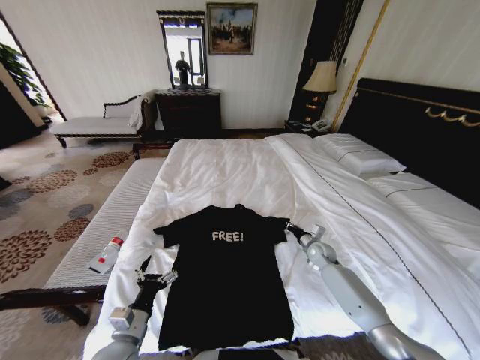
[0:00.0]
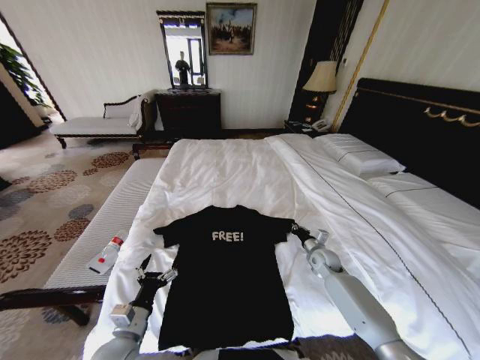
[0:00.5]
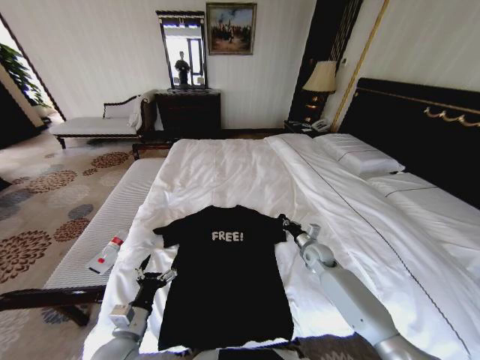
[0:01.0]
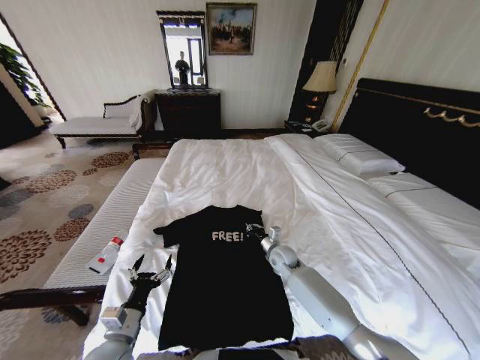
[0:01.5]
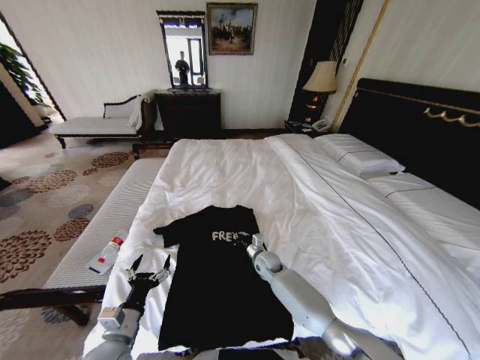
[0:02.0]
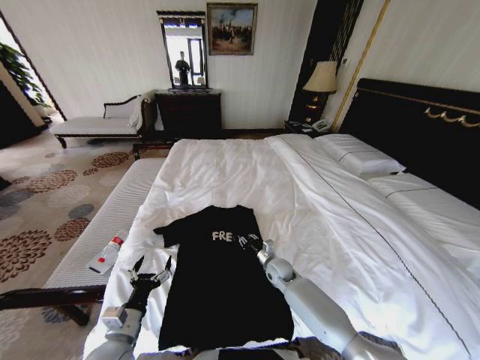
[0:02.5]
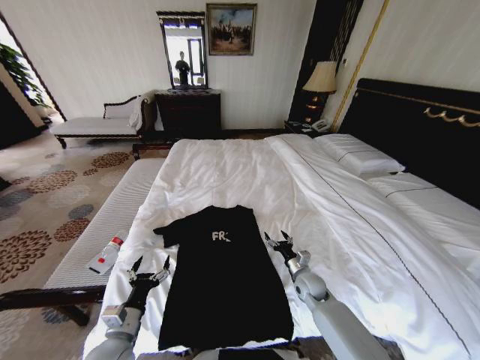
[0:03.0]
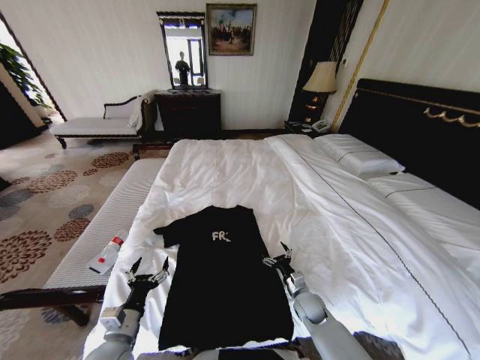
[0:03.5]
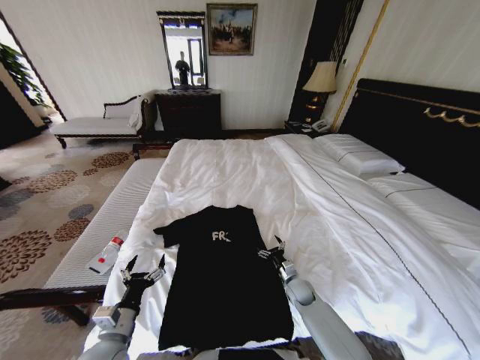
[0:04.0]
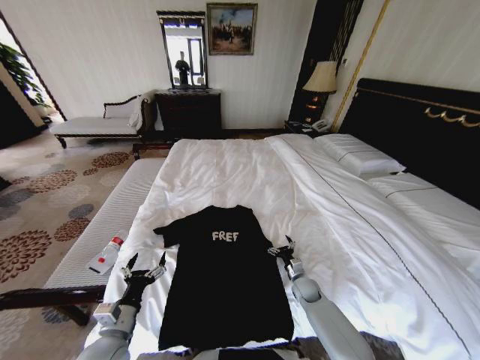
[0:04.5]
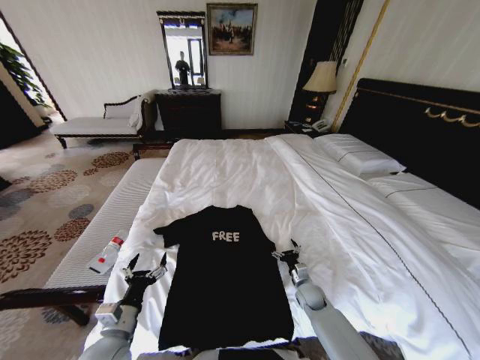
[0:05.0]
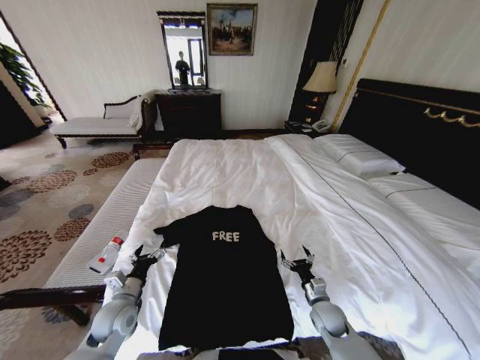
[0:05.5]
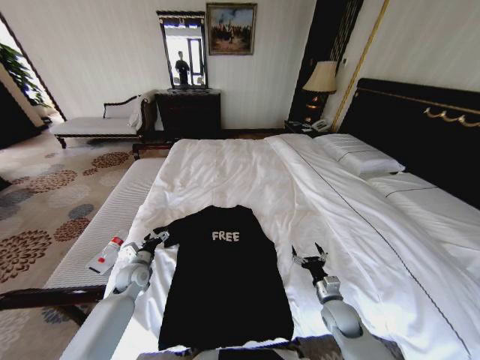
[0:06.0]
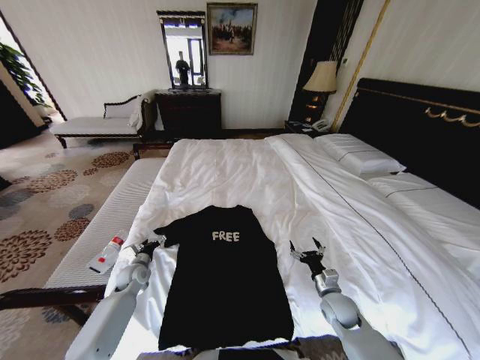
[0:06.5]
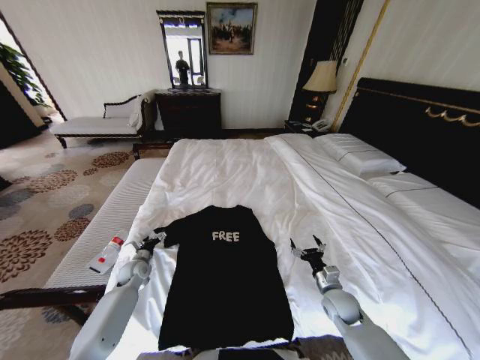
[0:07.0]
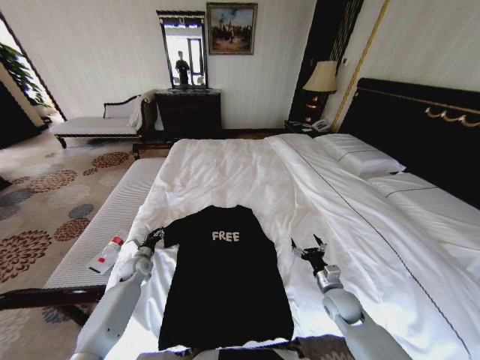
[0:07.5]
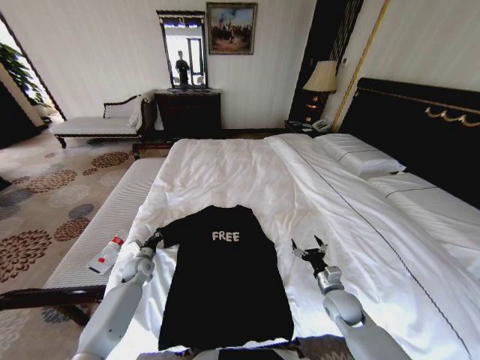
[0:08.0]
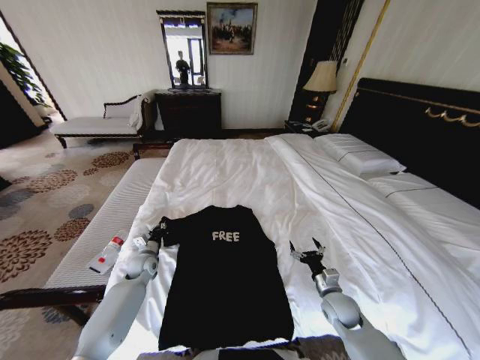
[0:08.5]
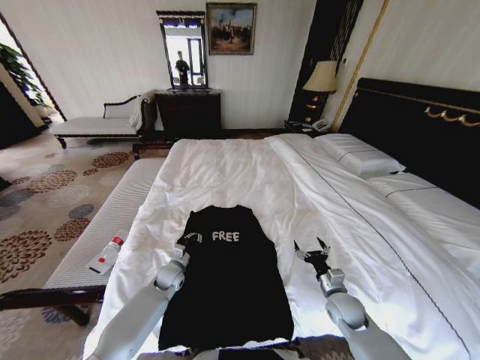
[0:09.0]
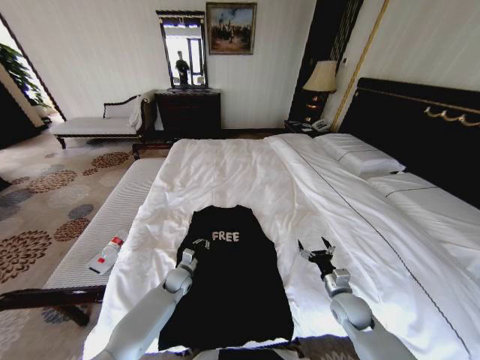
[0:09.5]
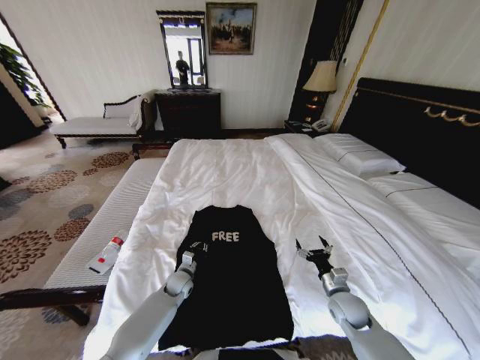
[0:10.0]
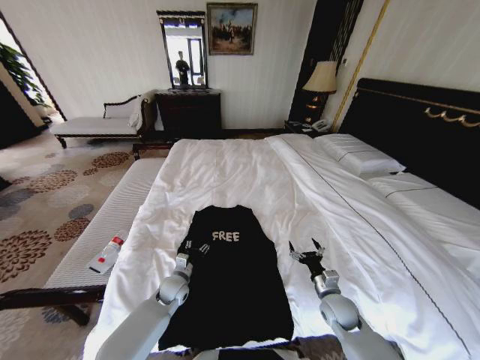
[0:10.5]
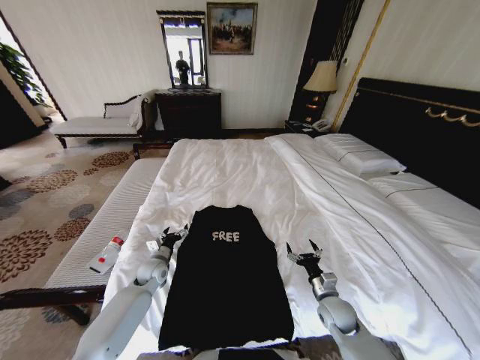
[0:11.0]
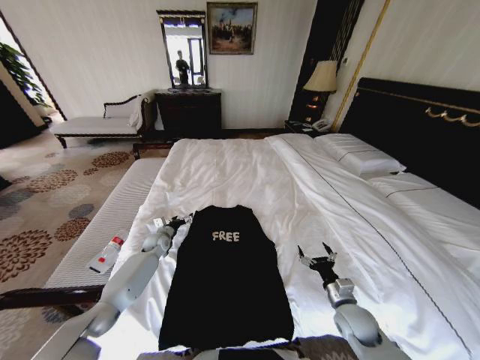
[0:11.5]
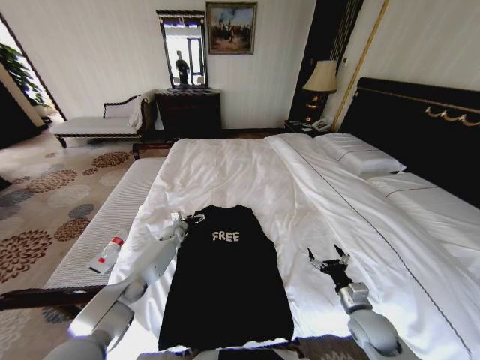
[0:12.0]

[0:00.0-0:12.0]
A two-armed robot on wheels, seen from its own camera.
Task of the whole recording: Fold the clothes on the bed.
0:00.0 to 0:02.0: The right gripper travels to the left by approximately 20 cm.
0:02.0 to 0:04.0: The right gripper goes roughly 15 cm to the right, backward and downward, and opens its fingers.
0:04.0 to 0:06.0: The left gripper shifts some 20 cm forward, while the right gripper heads backward, to the right and upward, covering approximately 15 cm.
0:06.0 to 0:08.0: The left gripper shifts roughly 5 cm forward, and closes its fingers.
0:08.0 to 0:10.0: The left gripper travels to the right by some 15 cm.
0:10.0 to 0:12.0: The right gripper is displaced backward by roughly 5 cm. Meanwhile the left gripper travels forward by approximately 20 cm, and opens its fingers.

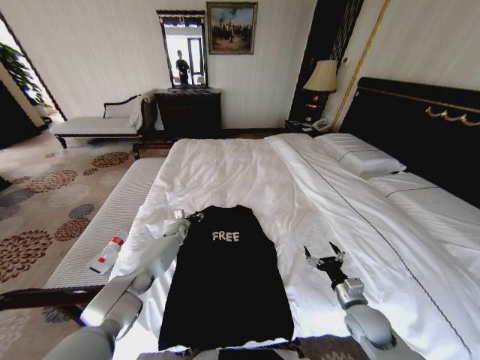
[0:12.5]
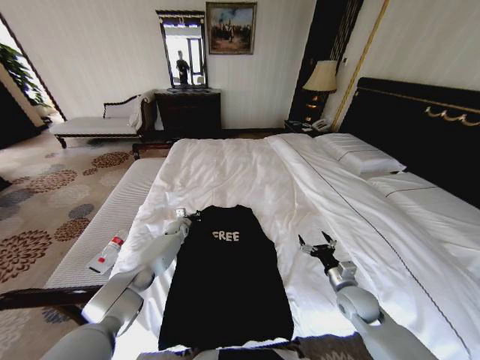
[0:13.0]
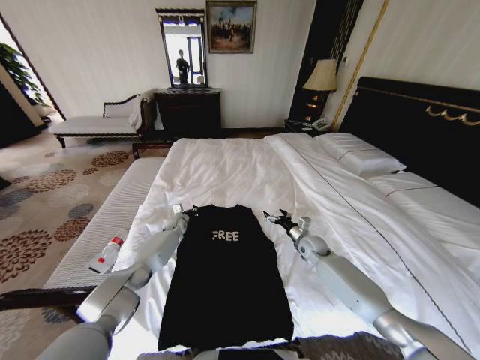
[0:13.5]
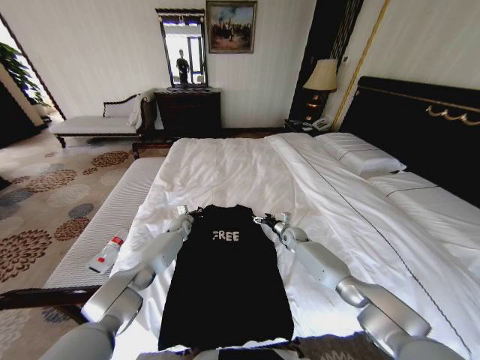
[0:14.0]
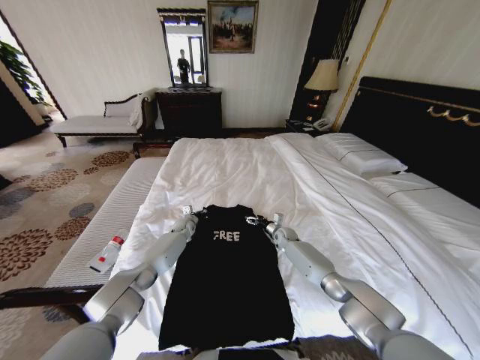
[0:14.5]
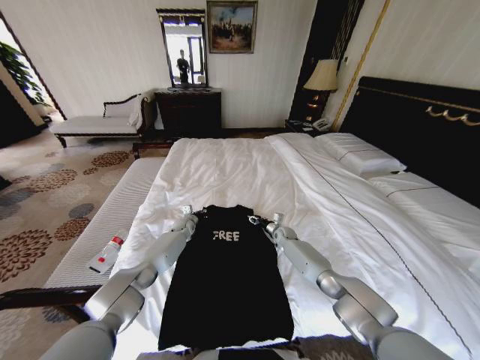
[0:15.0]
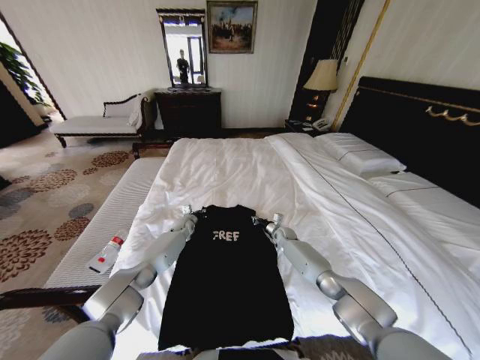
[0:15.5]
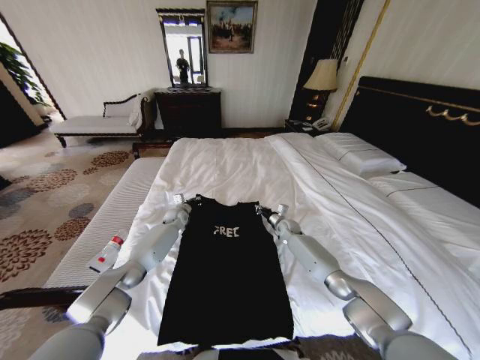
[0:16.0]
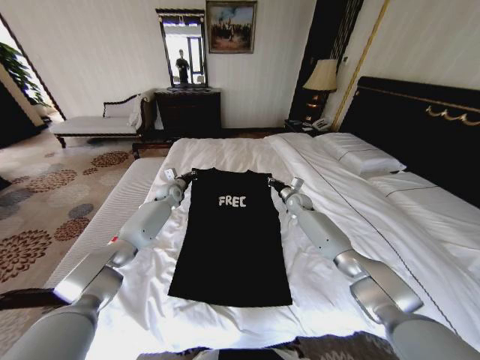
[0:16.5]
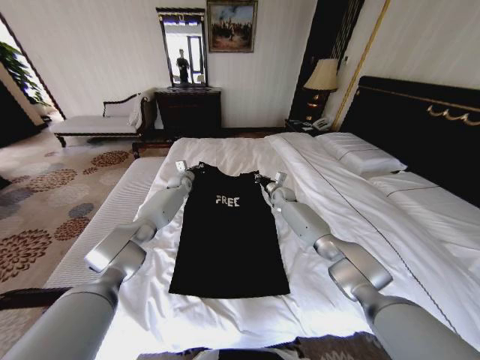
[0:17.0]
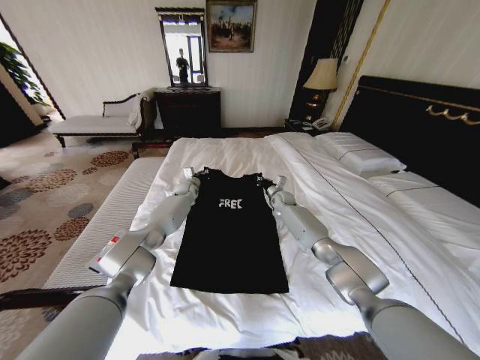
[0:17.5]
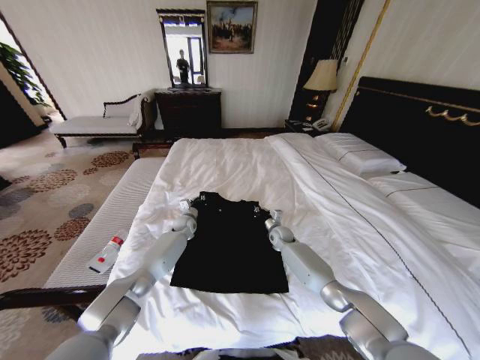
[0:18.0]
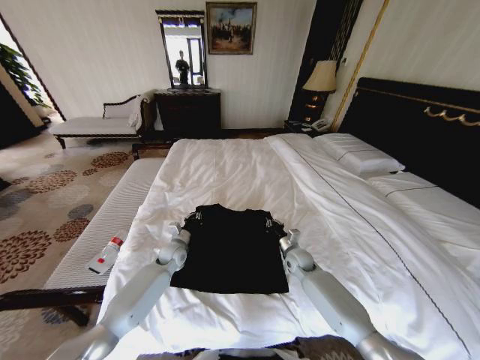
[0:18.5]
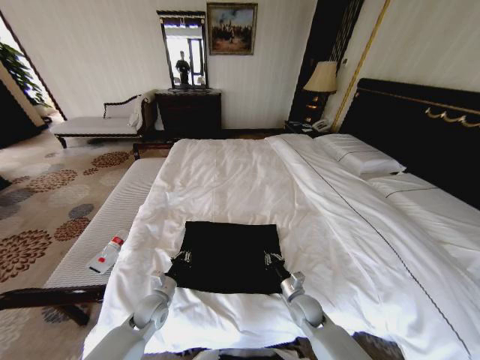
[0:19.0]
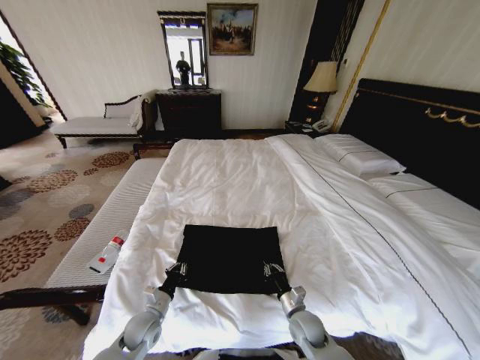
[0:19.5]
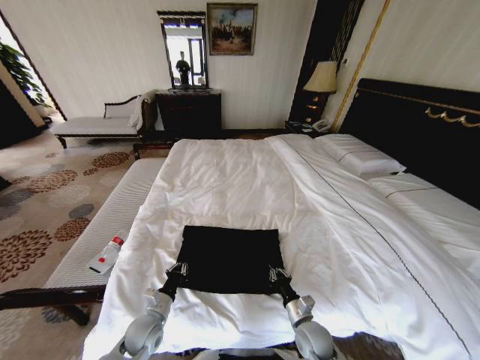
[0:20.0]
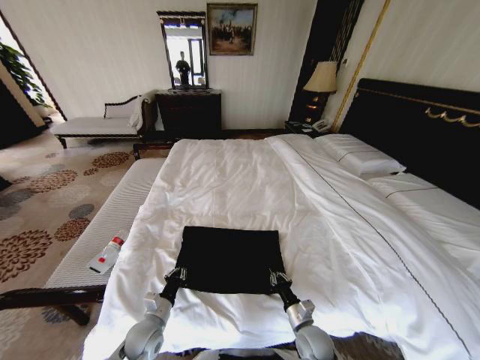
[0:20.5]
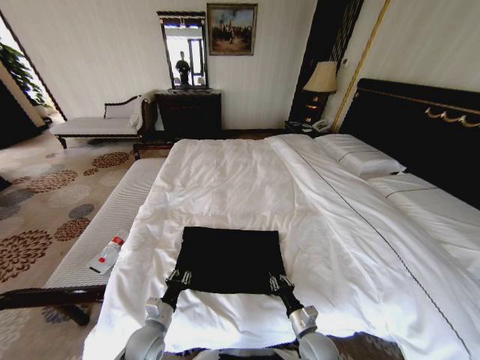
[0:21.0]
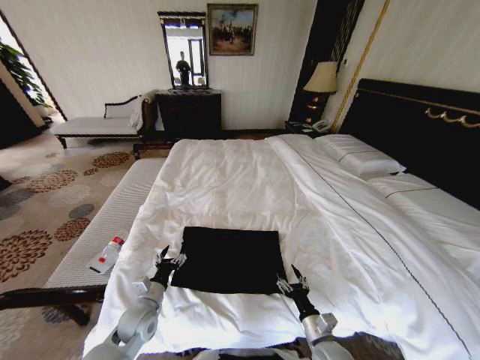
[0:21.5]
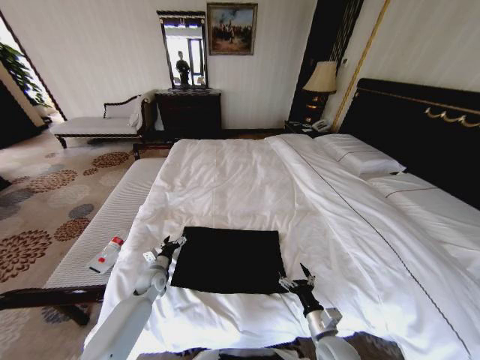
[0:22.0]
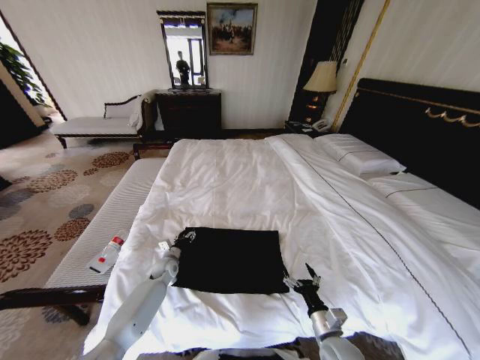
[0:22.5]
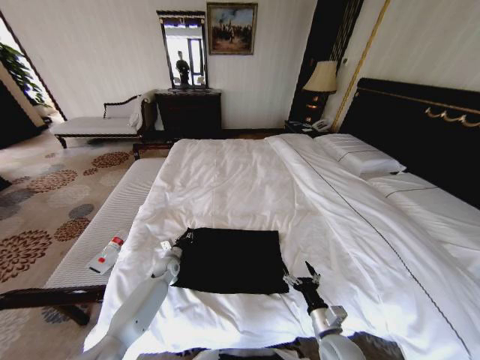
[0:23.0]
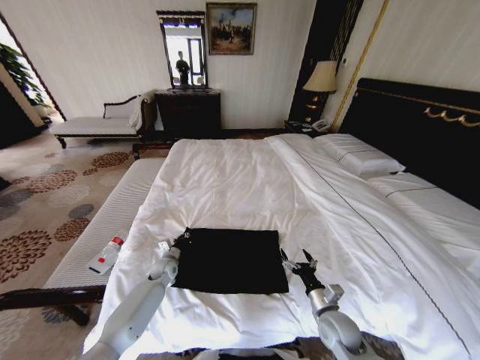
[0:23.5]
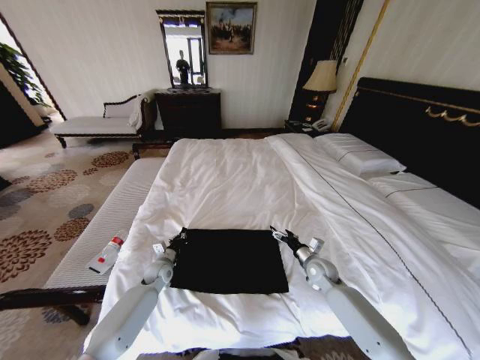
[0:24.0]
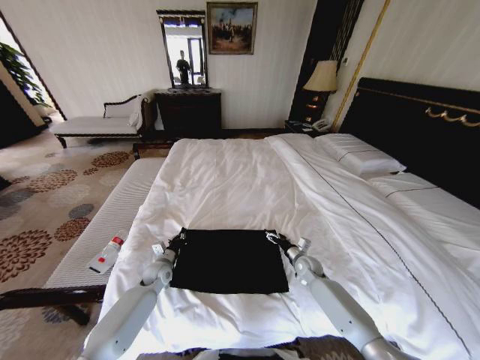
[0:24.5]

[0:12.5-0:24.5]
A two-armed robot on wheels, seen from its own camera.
Task of the whole recording: Fold the clothes on the bed.
0:12.5 to 0:14.5: The right gripper is displaced forward by approximately 35 cm, while the left gripper closes.
0:14.5 to 0:16.5: The left gripper moves upward, roughly 15 cm; the right gripper is displaced upward and forward by some 15 cm, and closes.
0:16.5 to 0:18.5: Both grippers move backward and downward, about 25 cm.
0:18.5 to 0:20.5: The two grippers go some 25 cm backward.
0:20.5 to 0:22.5: The left gripper moves forward, roughly 20 cm, and opens up. The right gripper moves roughly 5 cm, and opens.
0:22.5 to 0:24.5: The right gripper shifts about 25 cm forward. Meanwhile the left gripper closes up.

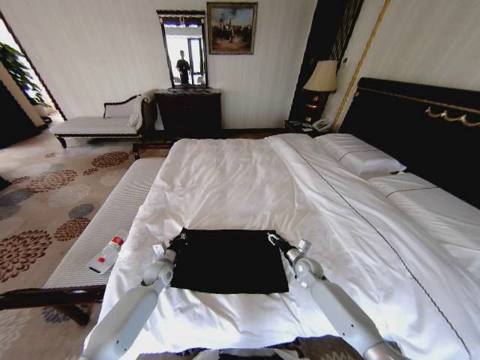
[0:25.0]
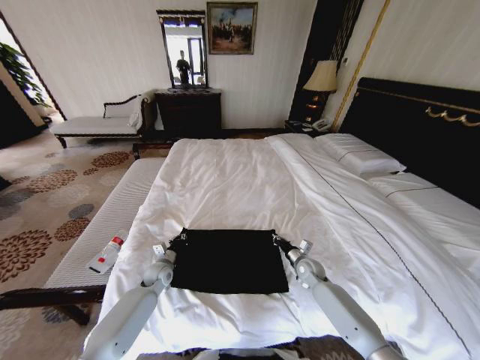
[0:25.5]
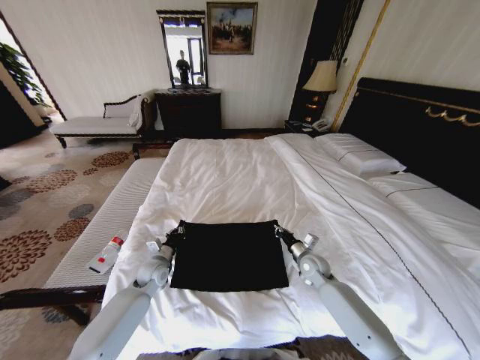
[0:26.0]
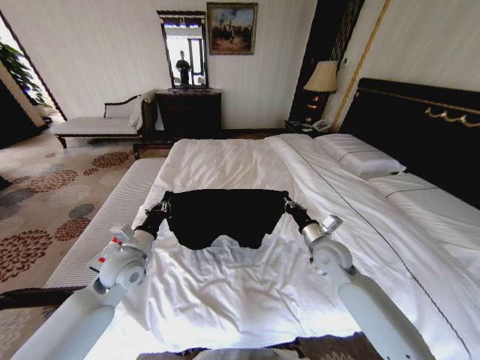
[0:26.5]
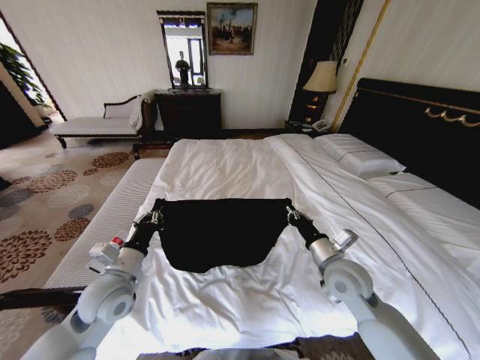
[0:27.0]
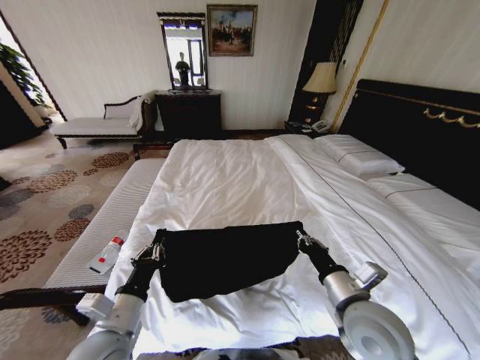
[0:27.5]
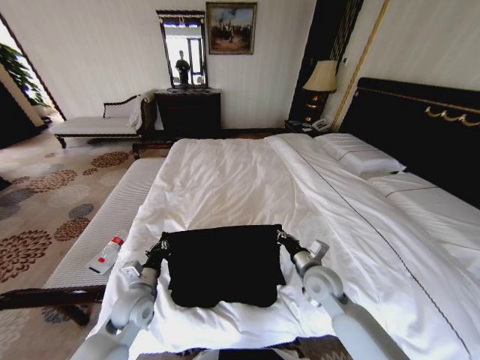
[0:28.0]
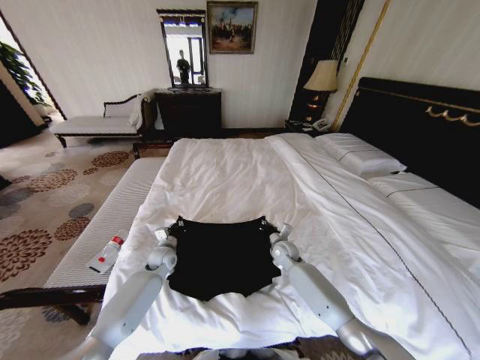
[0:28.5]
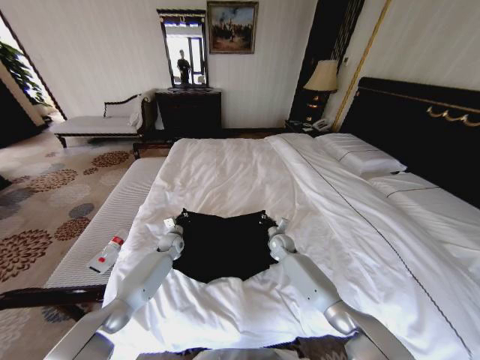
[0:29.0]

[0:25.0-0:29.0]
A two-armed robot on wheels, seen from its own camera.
Task of the whole recording: Fold the clothes on the bed.
0:25.0 to 0:27.0: Both grippers travel together upward and backward, roughly 25 cm. The right gripper closes.
0:27.0 to 0:29.0: The two grippers go about 30 cm forward and downward.
